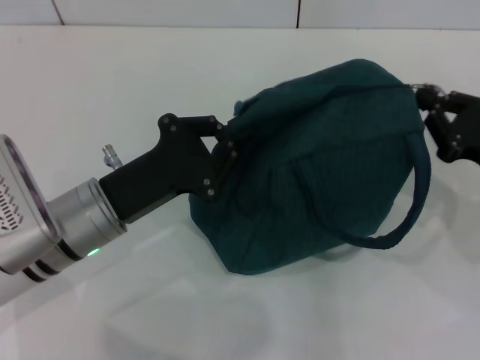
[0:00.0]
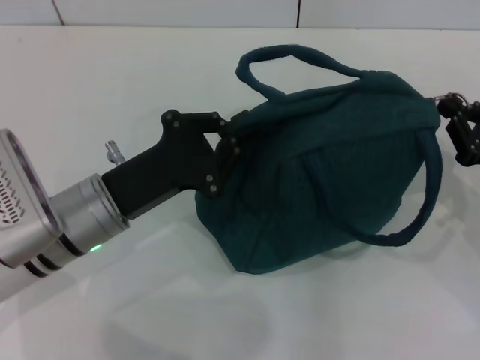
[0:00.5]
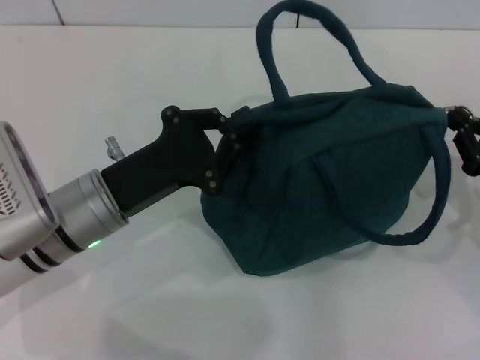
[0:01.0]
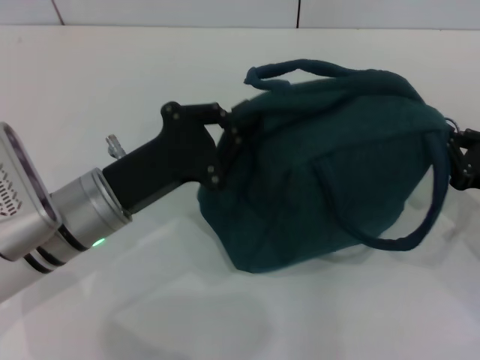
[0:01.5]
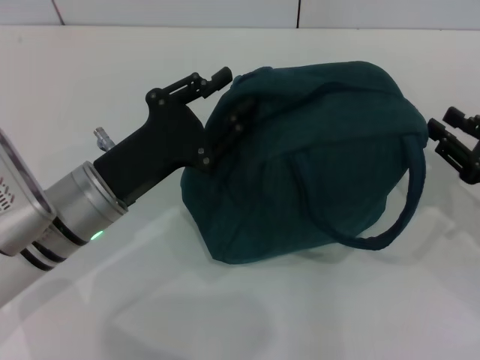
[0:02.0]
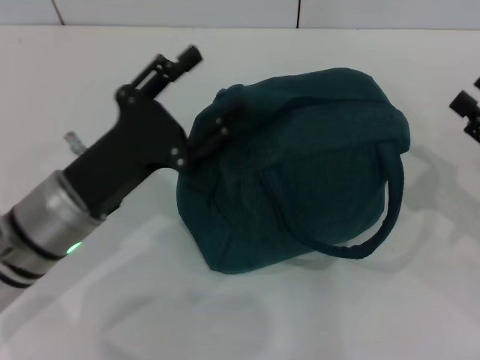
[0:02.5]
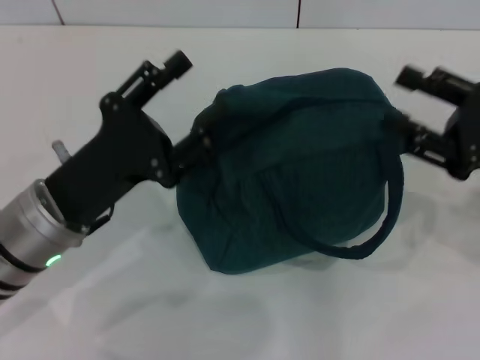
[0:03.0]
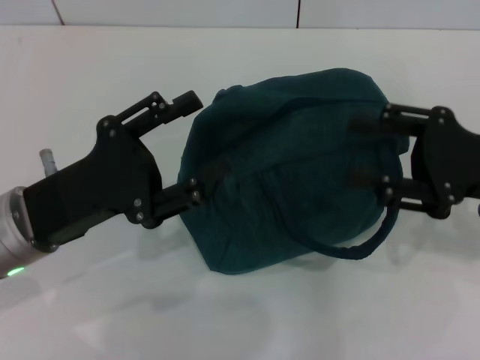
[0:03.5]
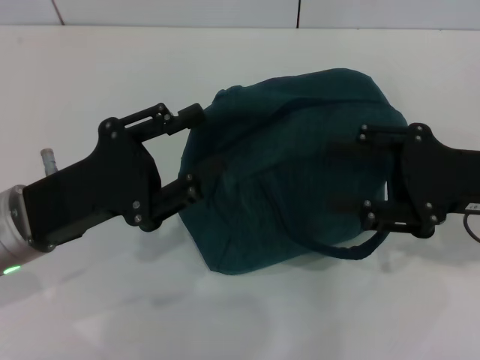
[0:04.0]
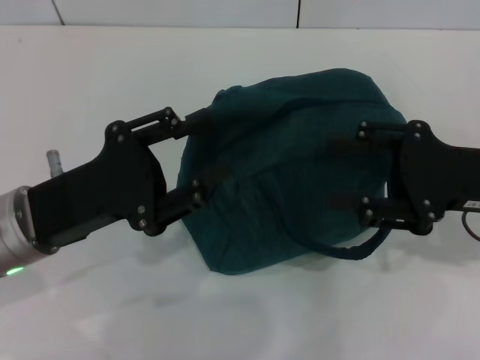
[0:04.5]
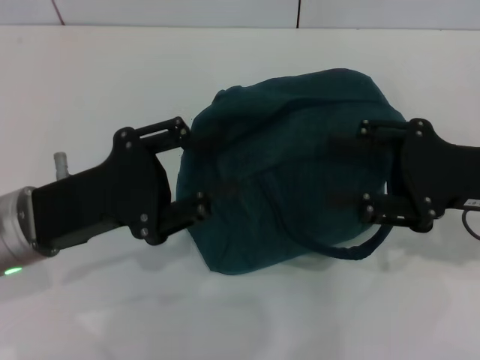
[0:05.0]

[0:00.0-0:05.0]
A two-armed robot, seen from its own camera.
0:00.0 to 0:02.5: The left gripper opens. Meanwhile the right gripper opens its fingers.
0:02.5 to 0:05.0: The right gripper goes some 10 cm to the left and upward.
